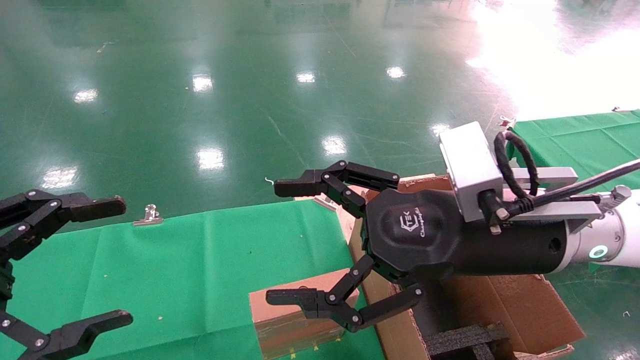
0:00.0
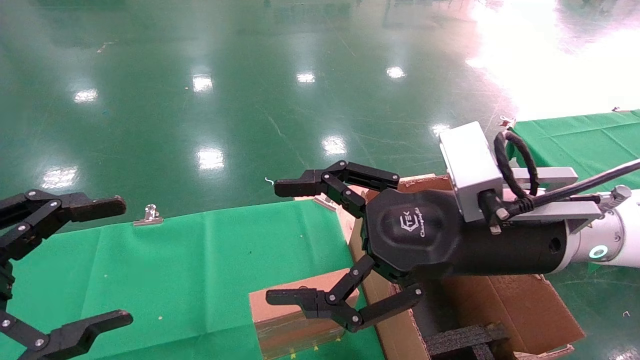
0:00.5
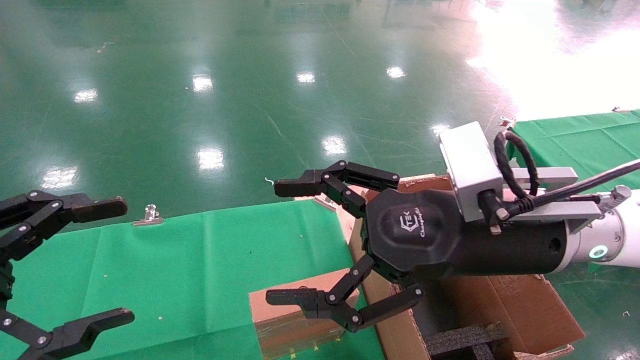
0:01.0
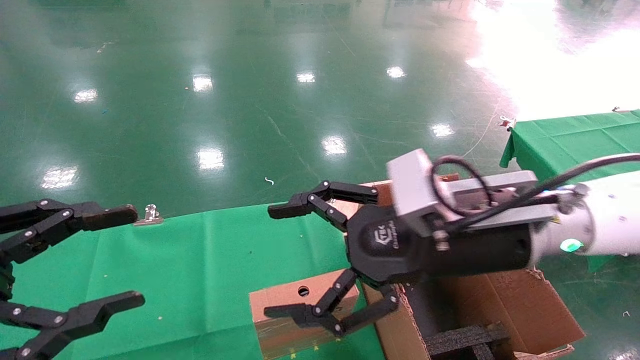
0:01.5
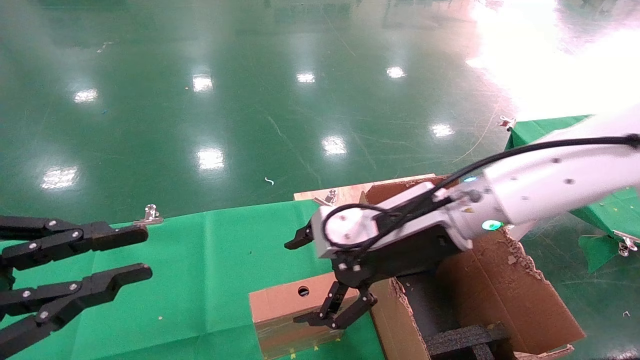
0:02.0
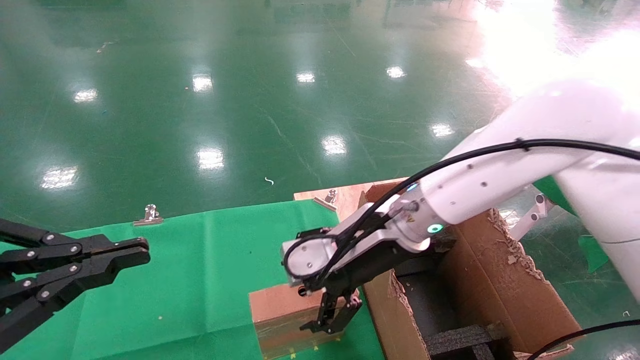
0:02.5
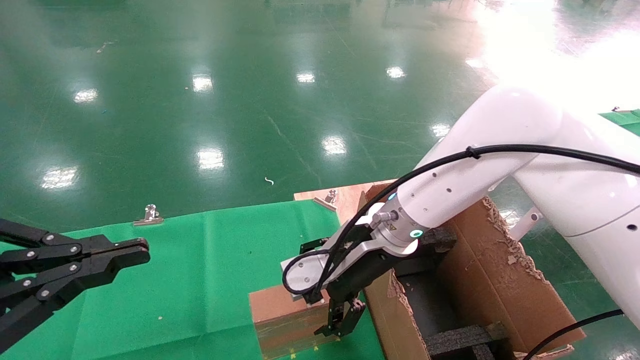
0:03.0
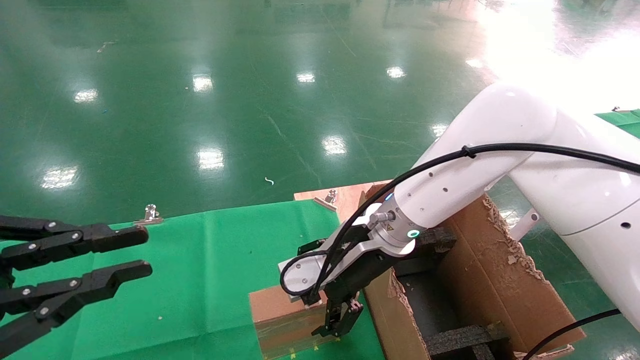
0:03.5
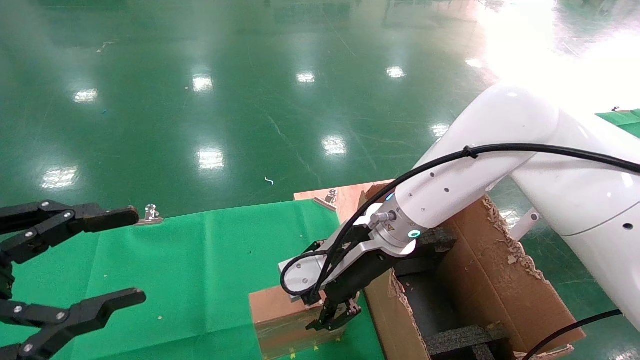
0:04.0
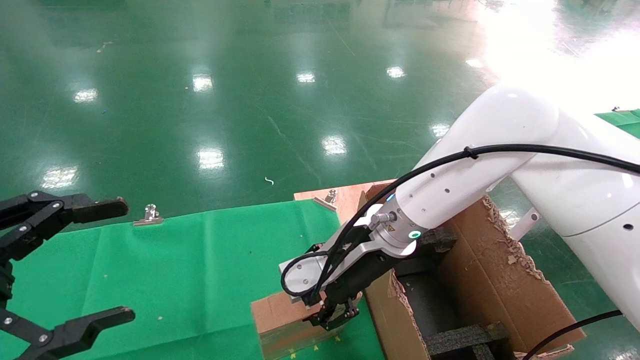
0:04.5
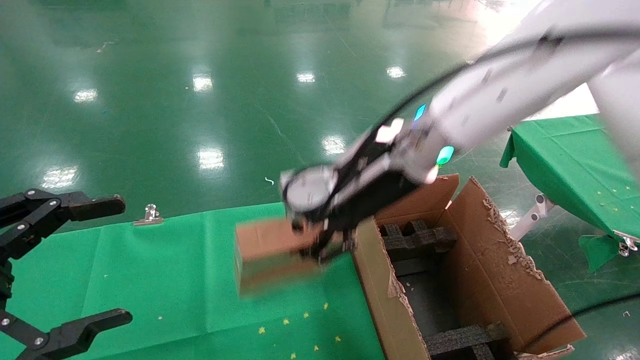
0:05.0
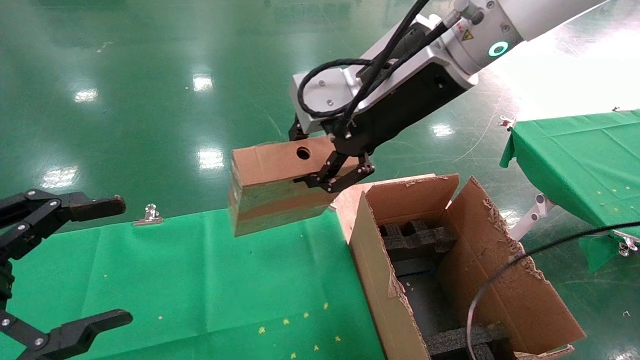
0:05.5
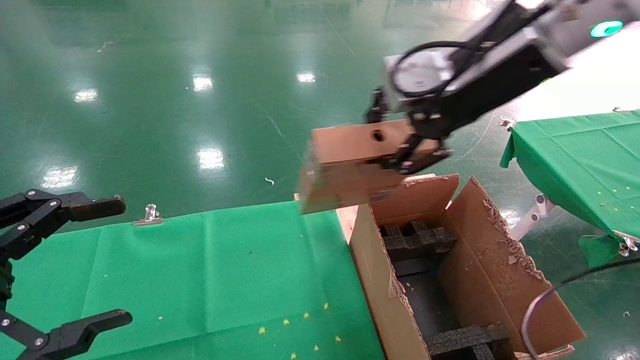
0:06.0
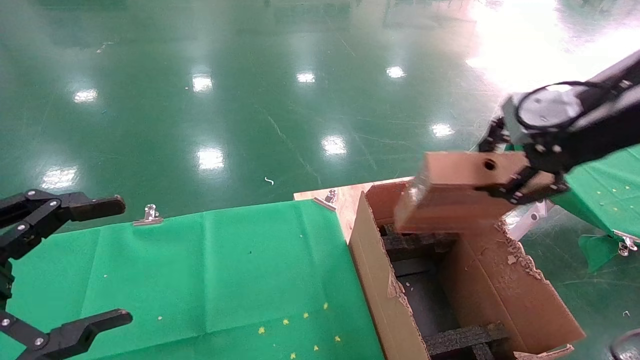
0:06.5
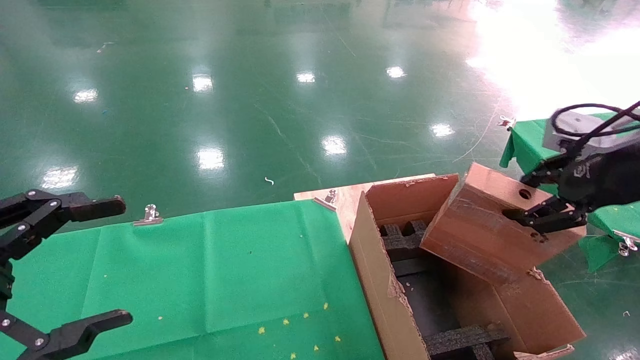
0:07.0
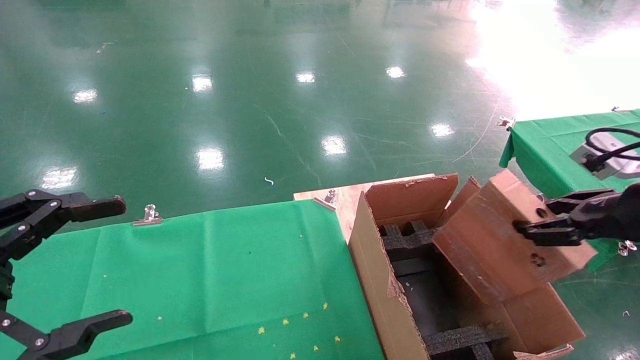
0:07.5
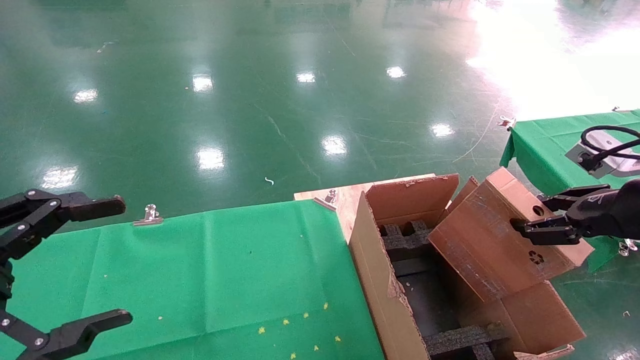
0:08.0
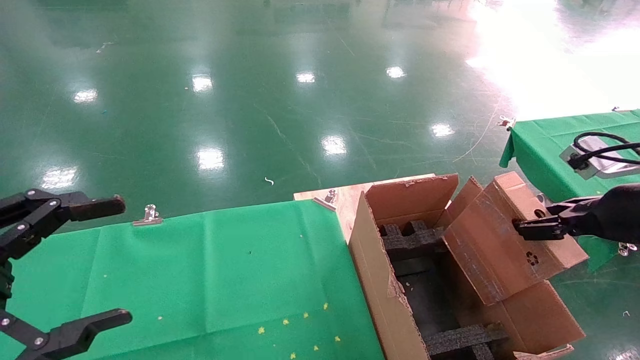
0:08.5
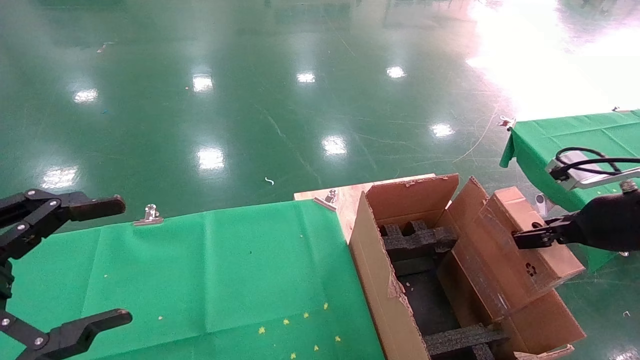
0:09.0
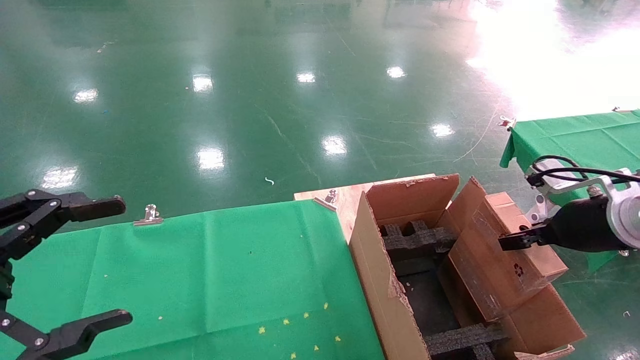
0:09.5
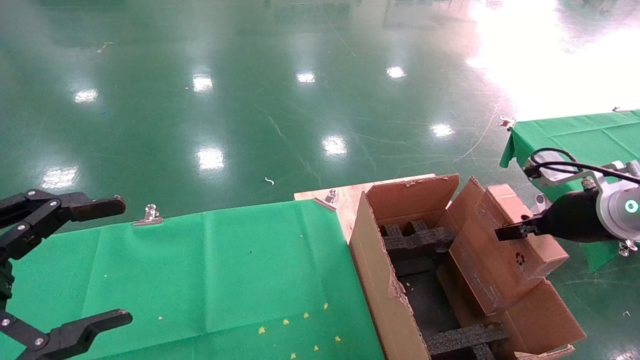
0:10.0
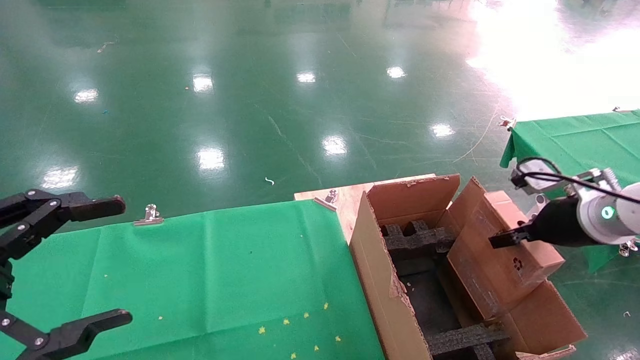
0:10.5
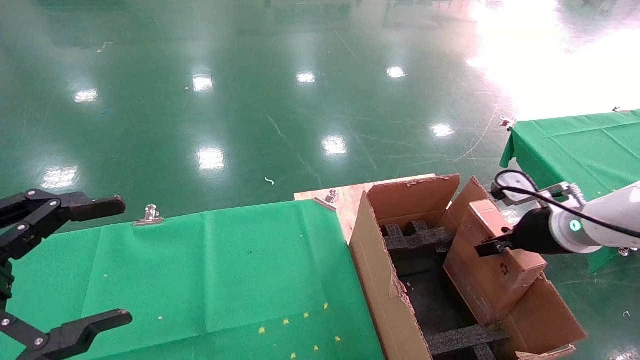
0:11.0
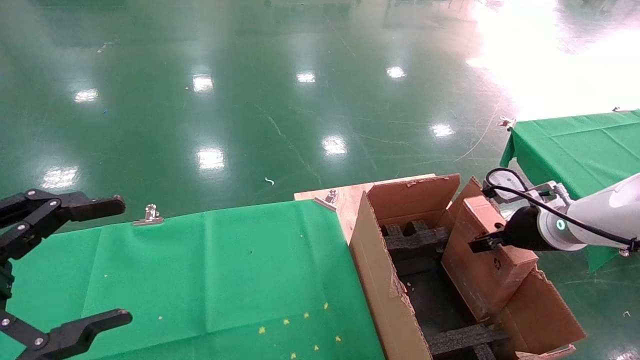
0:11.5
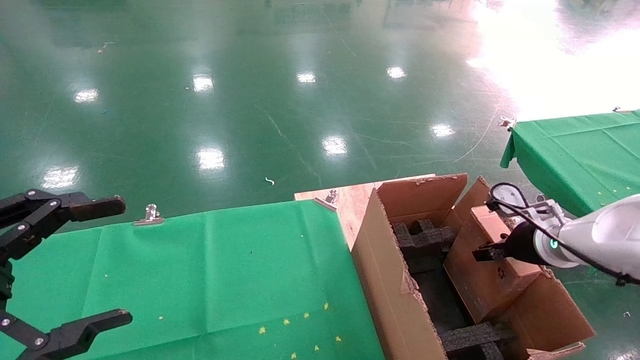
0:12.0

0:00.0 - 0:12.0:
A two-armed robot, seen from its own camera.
Task of the whole recording: using a robotic arm to pick up a cardboard box and palace it the carton.
Step, 0:01.5 - 0:04.0: Pick up the mouse and the power cord paper box.
0:00.0 - 0:02.0: The left gripper closes its fingers, while the right gripper heads forward, covering about 5 cm.
0:02.0 - 0:04.0: The right gripper moves some 5 cm.
0:04.0 - 0:06.0: The right gripper moves upward and to the right, roughly 25 cm, and closes its fingers, while the left gripper opens up.
0:06.0 - 0:08.0: The right gripper moves to the right, downward and backward, roughly 25 cm.
0:08.0 - 0:10.0: The right gripper is displaced forward and downward by some 10 cm.
0:10.0 - 0:12.0: The right gripper heads downward and forward, covering approximately 10 cm.

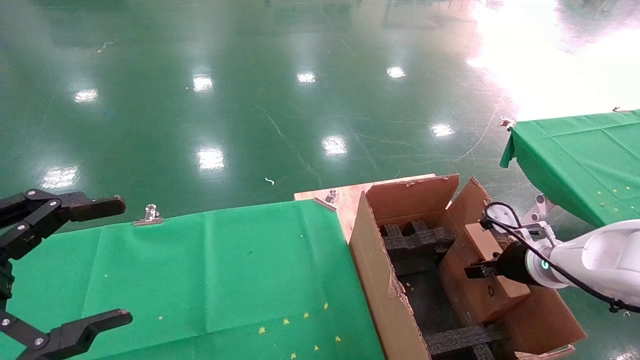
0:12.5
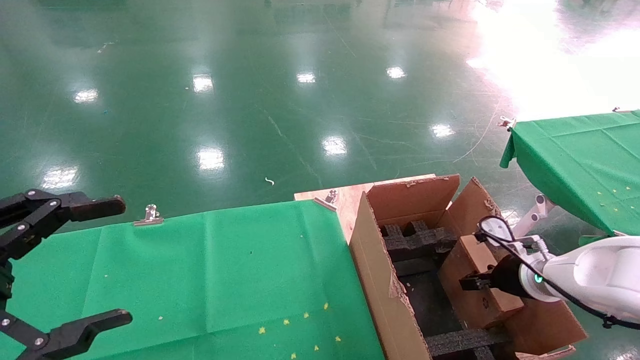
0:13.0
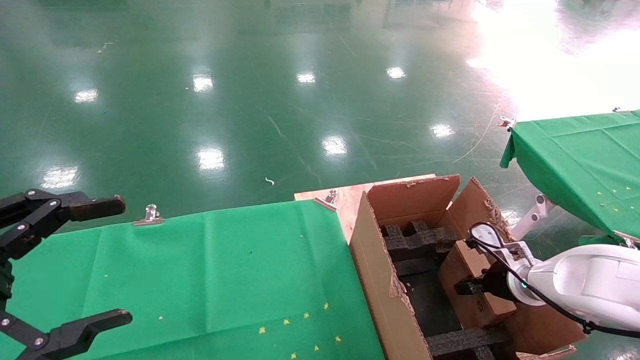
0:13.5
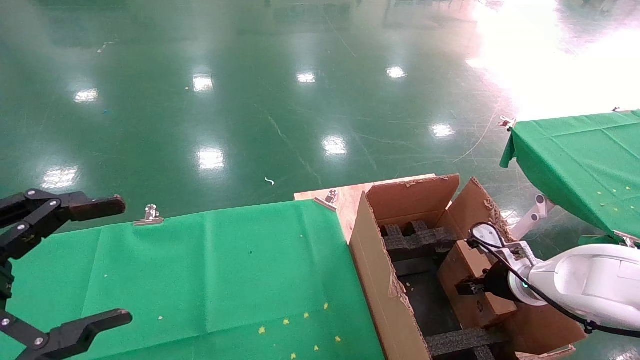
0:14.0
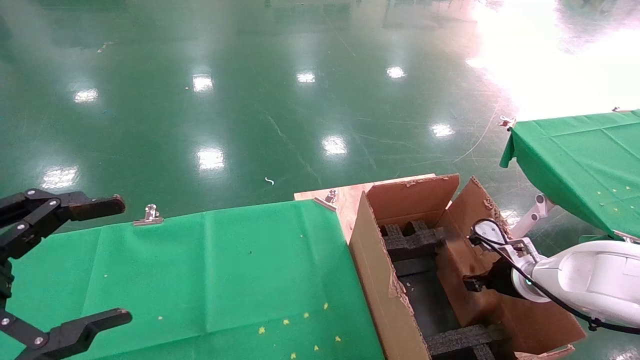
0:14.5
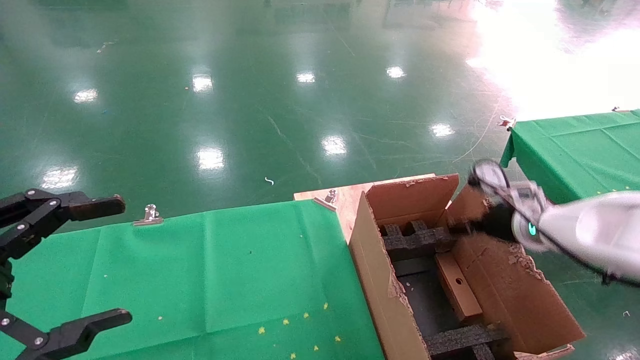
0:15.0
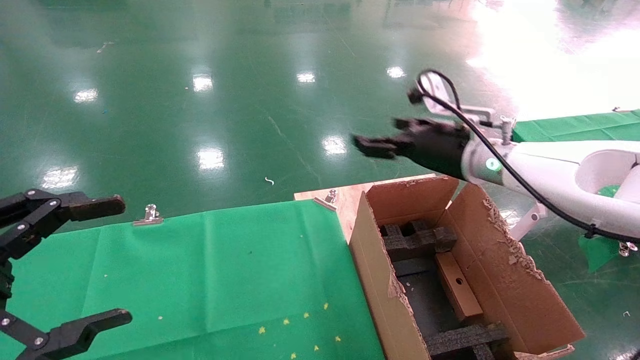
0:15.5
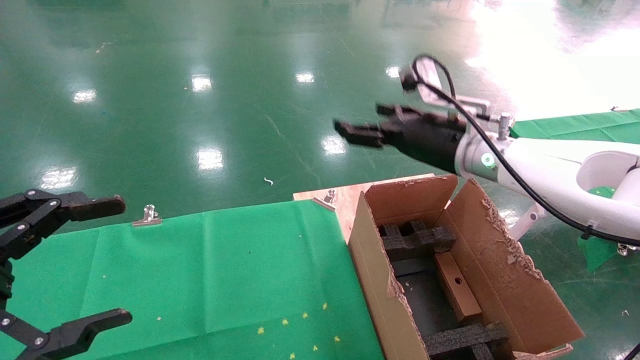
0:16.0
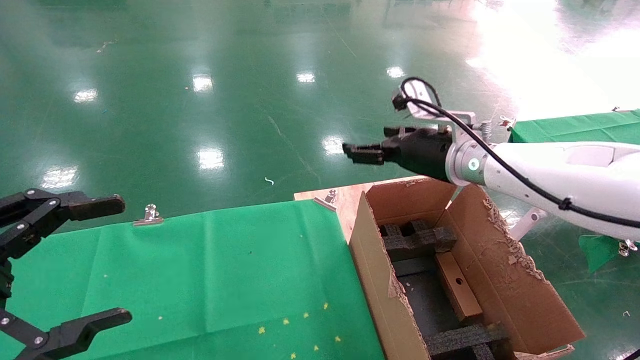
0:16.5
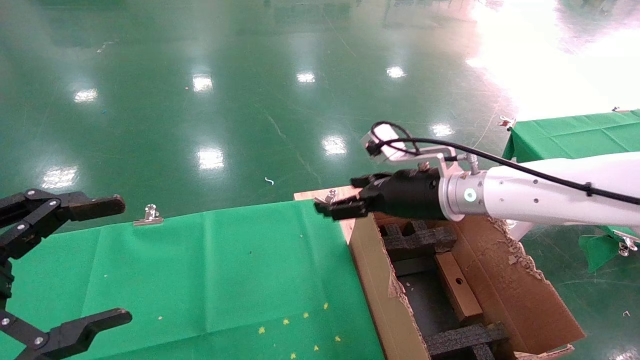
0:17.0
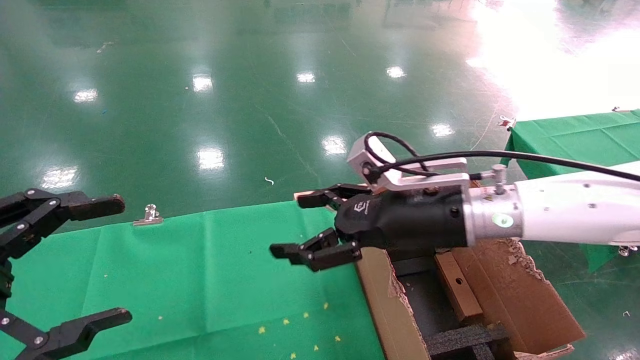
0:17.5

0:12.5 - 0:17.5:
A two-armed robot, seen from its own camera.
Task of the whole recording: using a robotic arm to pick up a cardboard box and palace it the carton.
Step, 0:12.5 - 0:14.5: Place the mouse and the power cord paper box into the container.
0:12.5 - 0:15.0: The right gripper heads upward, covering some 5 cm, and opens up.
0:15.0 - 0:17.5: The right gripper moves to the left, backward and upward, about 20 cm.

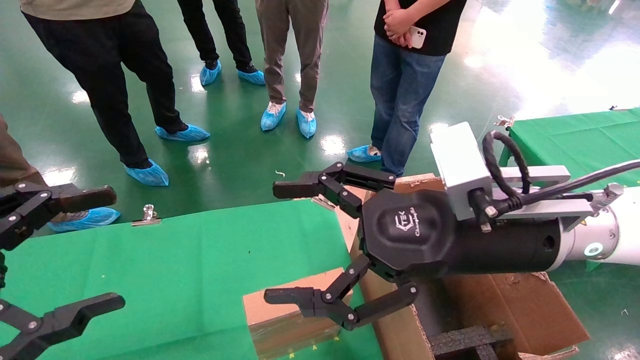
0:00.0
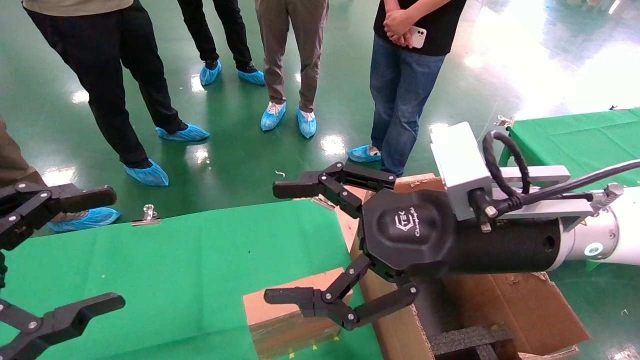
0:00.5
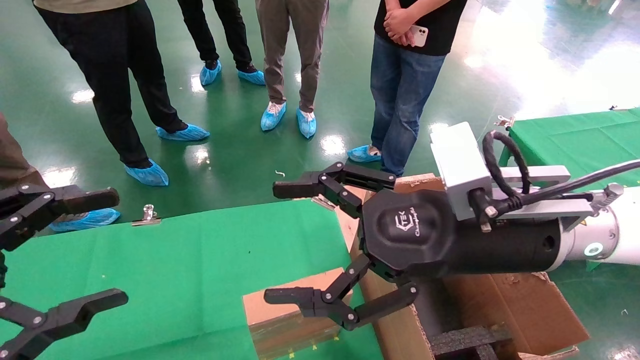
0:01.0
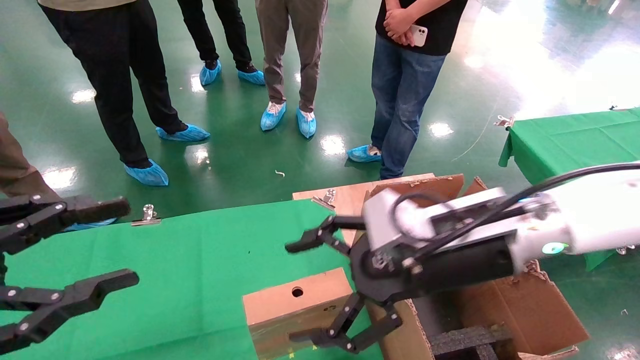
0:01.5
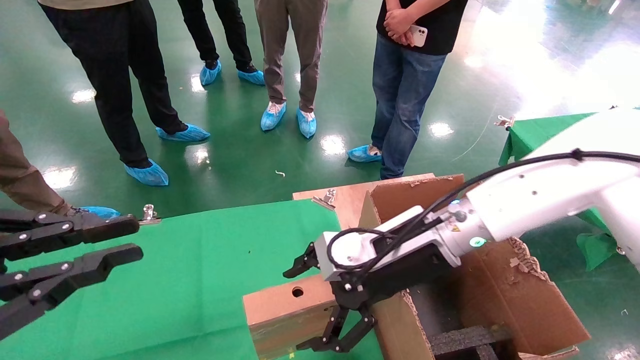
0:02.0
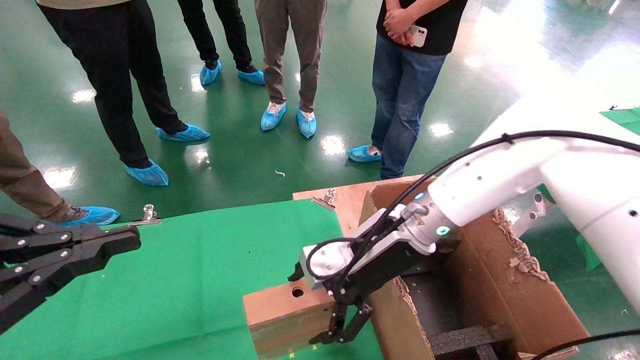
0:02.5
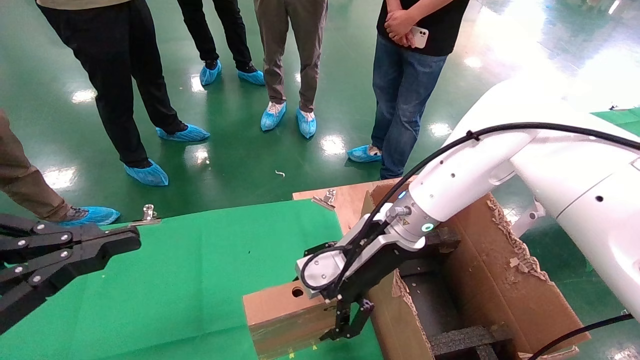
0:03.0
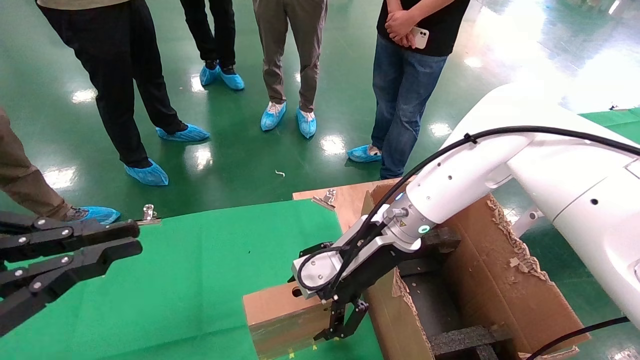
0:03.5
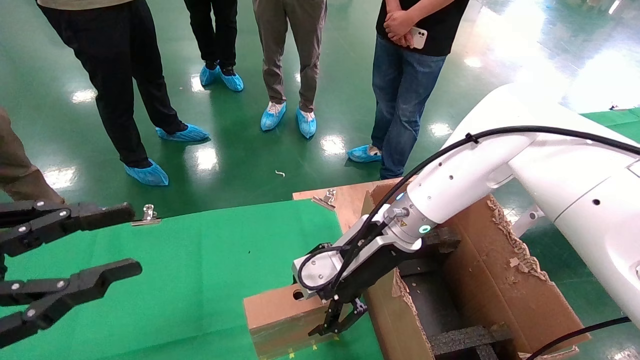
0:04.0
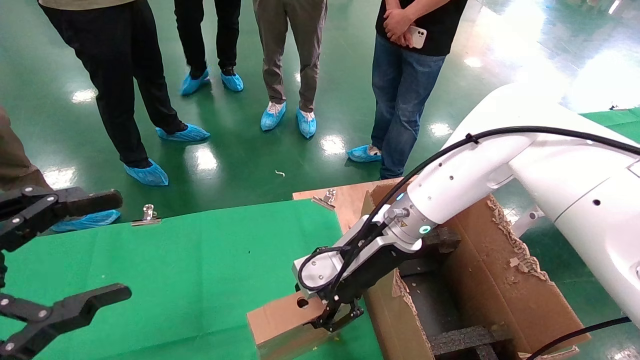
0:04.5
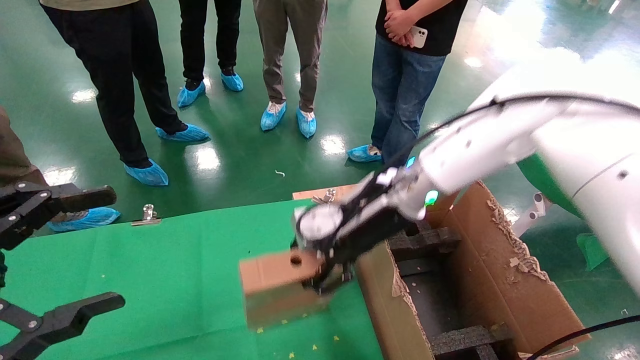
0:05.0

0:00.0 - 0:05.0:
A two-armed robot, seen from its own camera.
Task of the whole recording: using a robotic arm to pick up a cardboard box and palace it the carton.
Step, 0:01.5 - 0:04.0: Pick up the mouse and the power cord paper box.
0:00.0 - 0:02.5: The right gripper travels forward and downward by about 15 cm. Meanwhile the left gripper closes.
0:02.5 - 0:05.0: The right gripper goes roughly 5 cm upward, and closes, while the left gripper opens its fingers.
